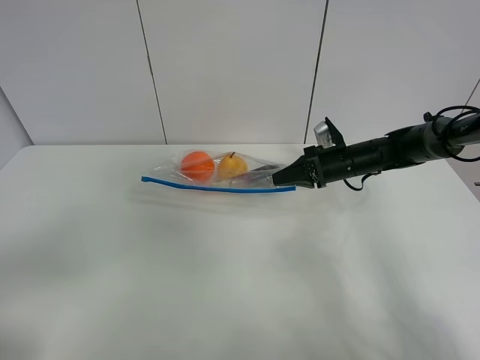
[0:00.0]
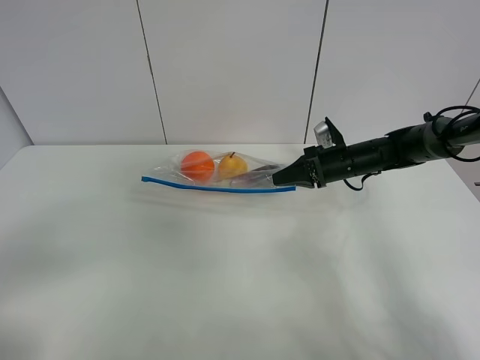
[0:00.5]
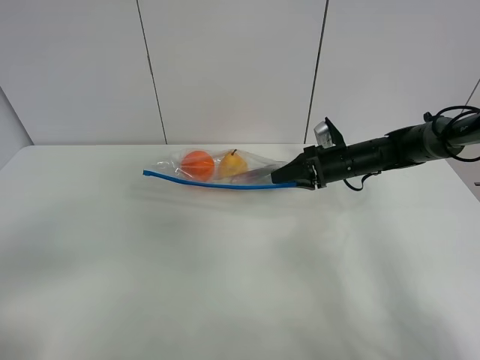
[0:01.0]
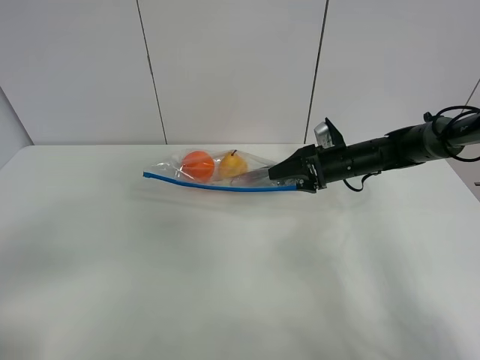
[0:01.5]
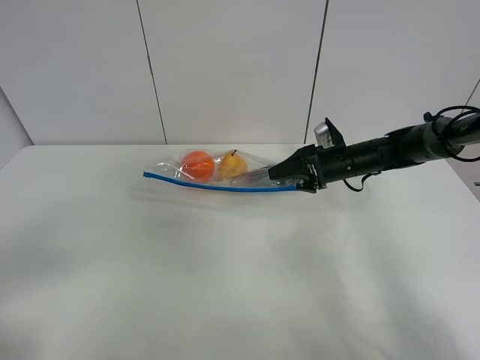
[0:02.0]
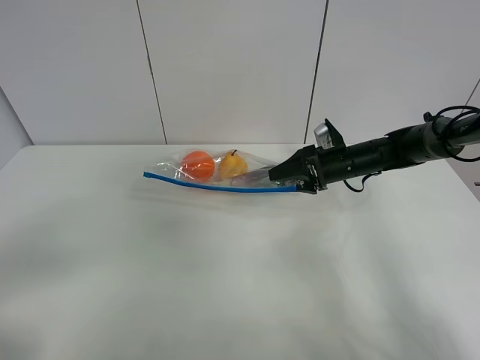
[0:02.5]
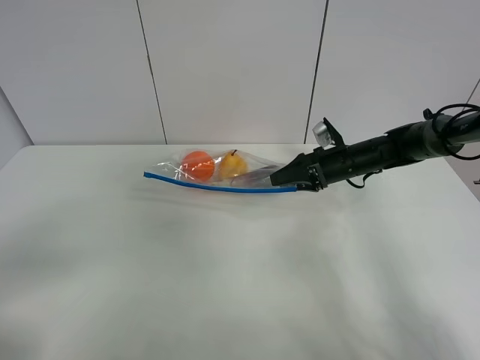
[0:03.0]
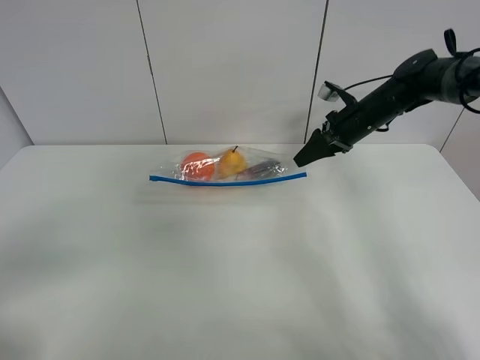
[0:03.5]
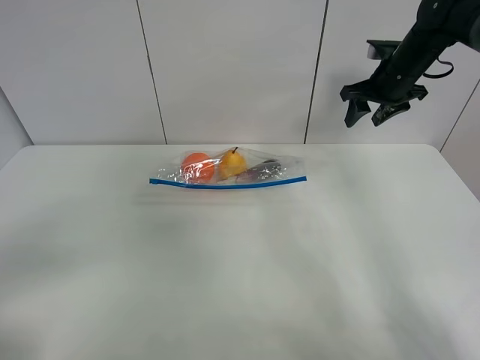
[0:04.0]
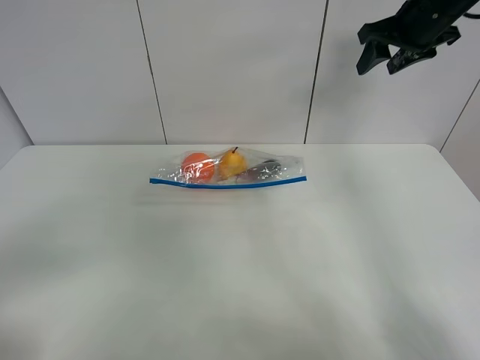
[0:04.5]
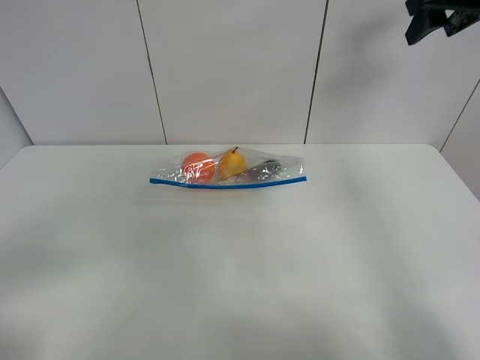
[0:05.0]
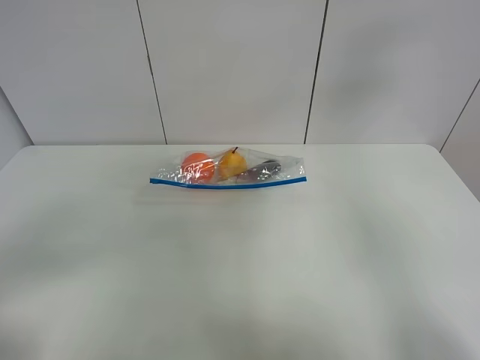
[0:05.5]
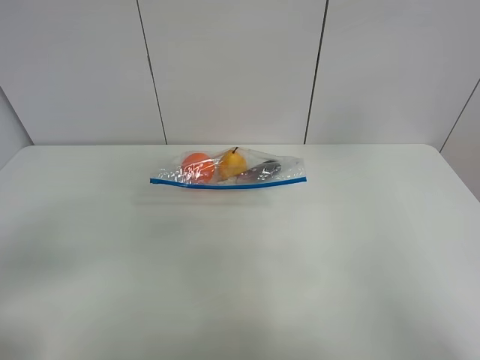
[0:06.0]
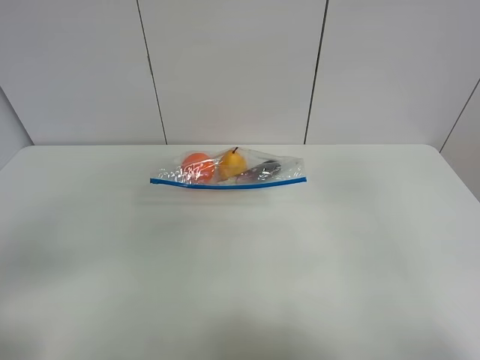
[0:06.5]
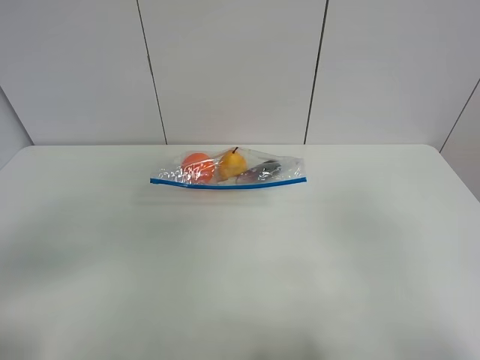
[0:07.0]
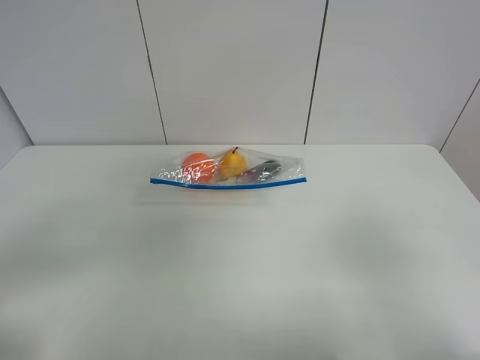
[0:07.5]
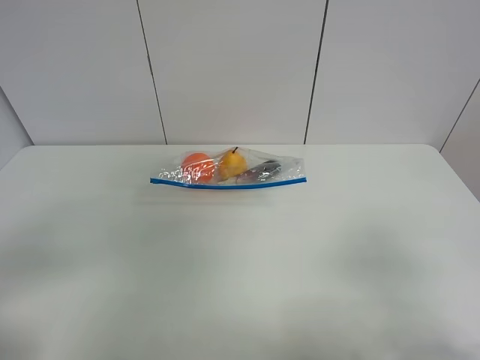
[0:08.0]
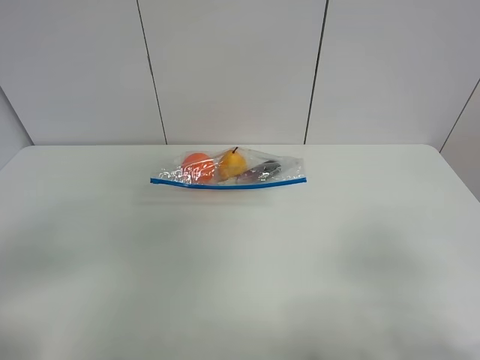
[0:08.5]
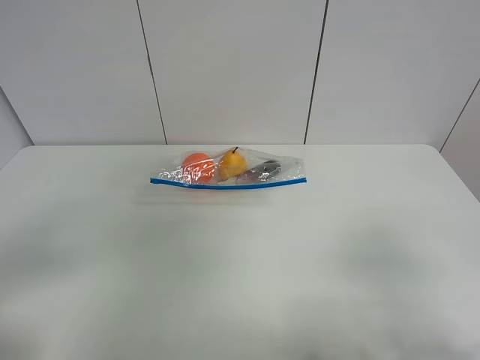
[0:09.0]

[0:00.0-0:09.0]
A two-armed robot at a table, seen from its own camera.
Step, 0:00.0 to 0:03.5: Place the fruit bag with right gripper.
0:00.0 to 0:02.0: The right gripper opens its fingers.
0:02.0 to 0:04.5: The right gripper travels upward by about 25 cm.
0:04.5 to 0:07.0: The right gripper travels backward by some 40 cm.
